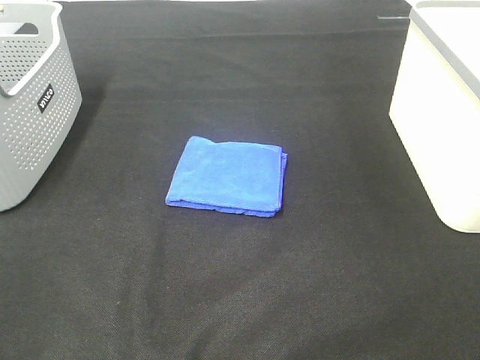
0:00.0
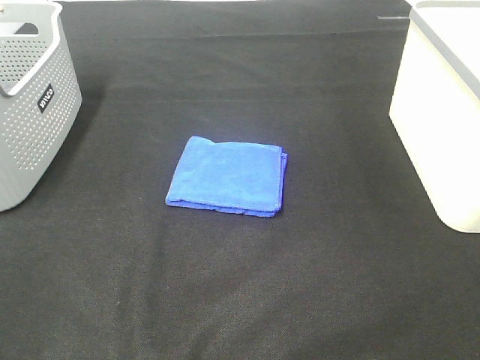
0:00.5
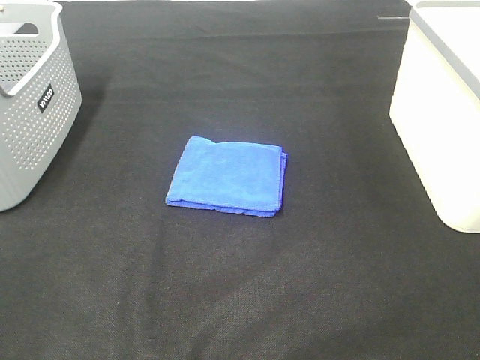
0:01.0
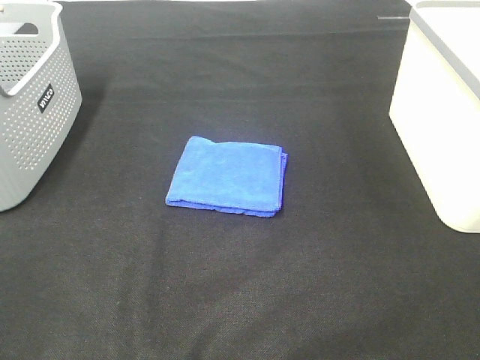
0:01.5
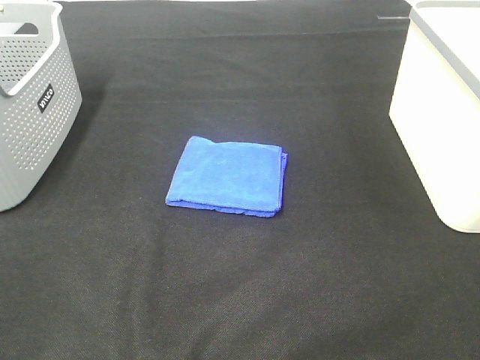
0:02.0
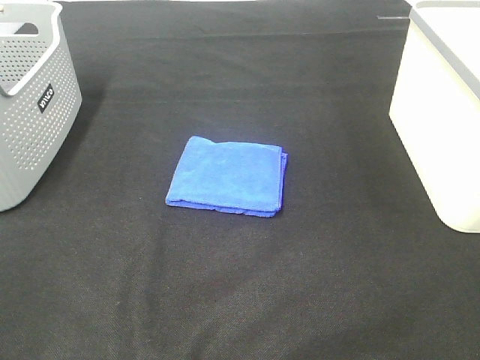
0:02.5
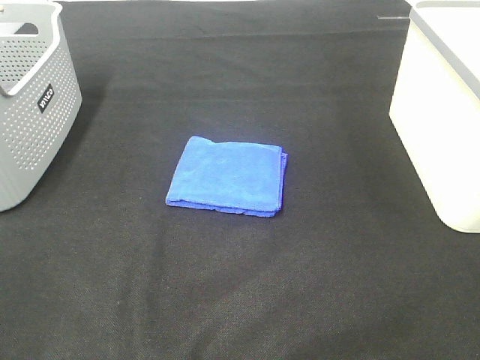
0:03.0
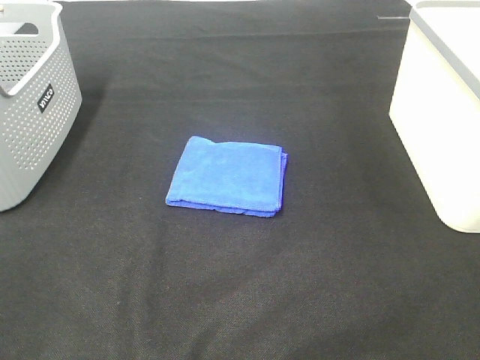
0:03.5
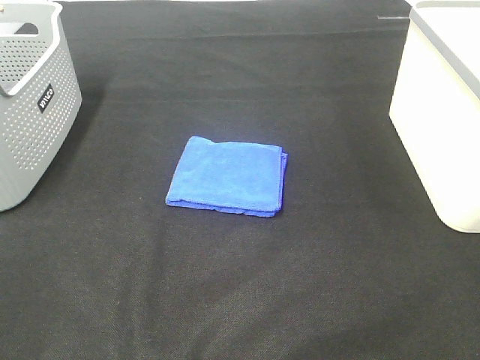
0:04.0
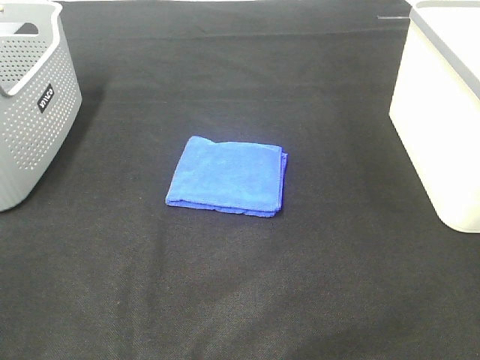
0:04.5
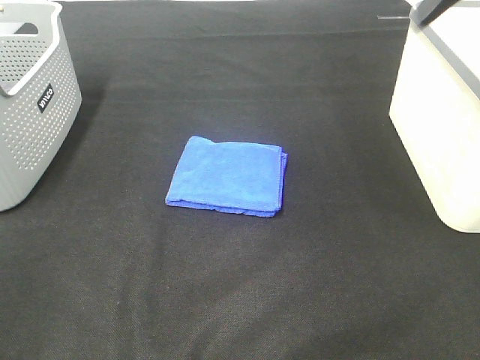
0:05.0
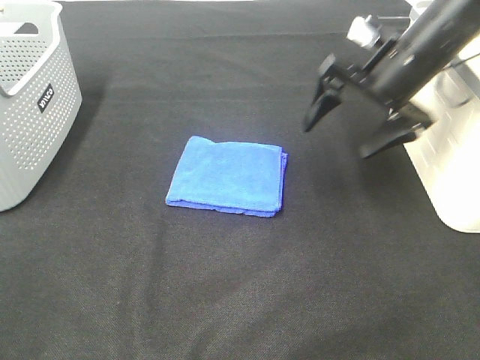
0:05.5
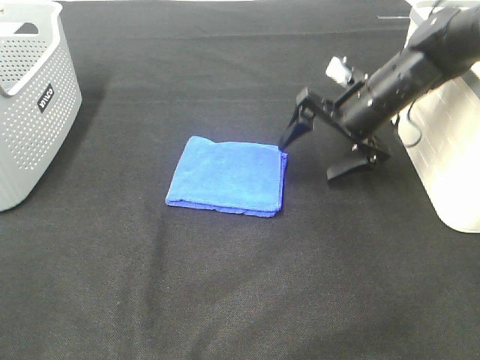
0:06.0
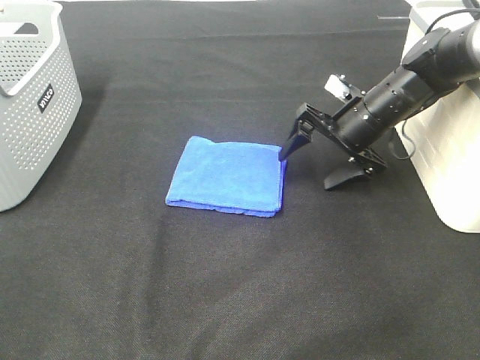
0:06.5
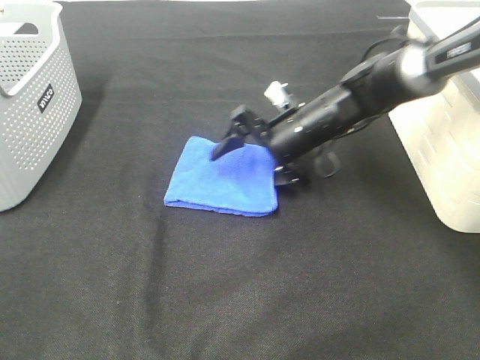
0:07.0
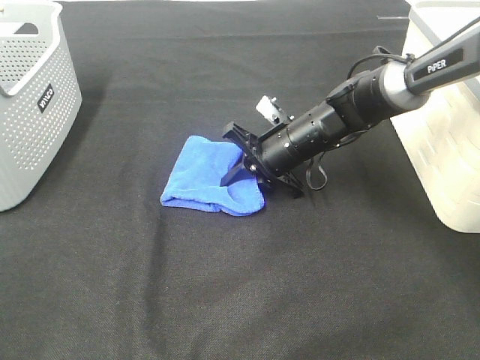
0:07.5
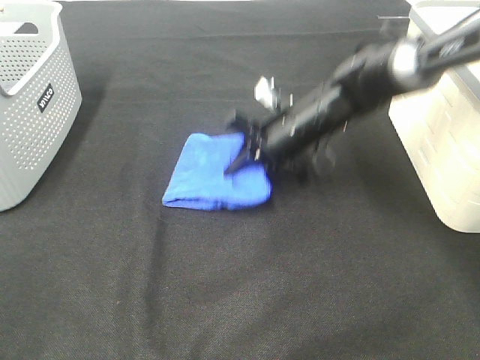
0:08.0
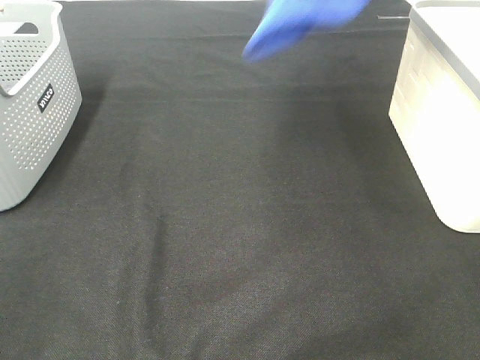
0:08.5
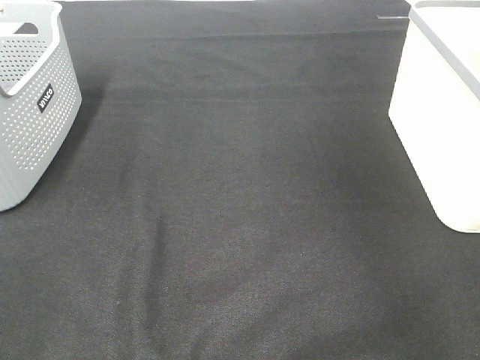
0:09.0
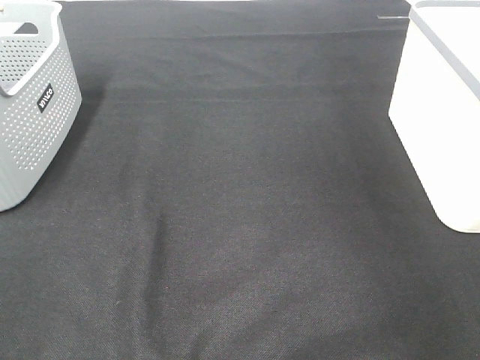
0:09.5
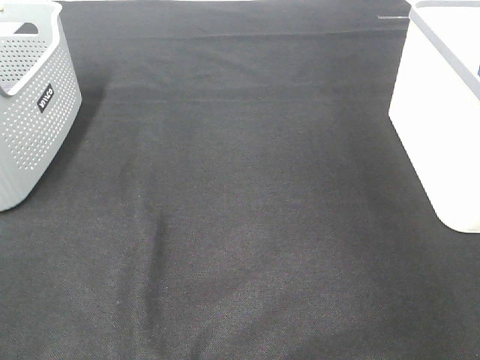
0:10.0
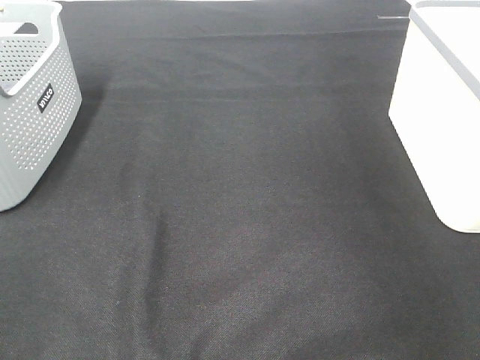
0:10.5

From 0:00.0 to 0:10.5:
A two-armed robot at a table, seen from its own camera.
Step, from 0:00.0 to 0:07.5: Right hand: grab the folded blue towel.
From 0:00.0 to 0:02.0: Both grippers stay put.
From 0:04.0 to 0:06.5: The right gripper travels forward and downward by approximately 40 cm.
From 0:06.5 to 0:08.5: The right gripper heads upward, covering some 25 cm, and closes its fingers.
From 0:08.5 to 0:10.5: The right gripper is displaced to the right by roughly 20 cm, and opens its fingers.

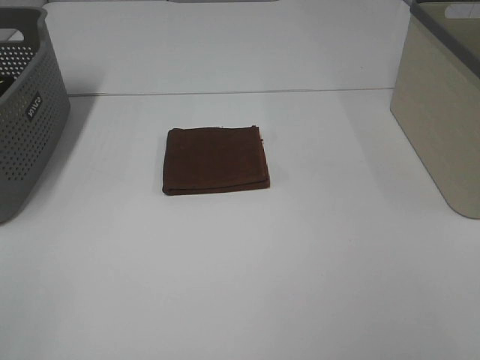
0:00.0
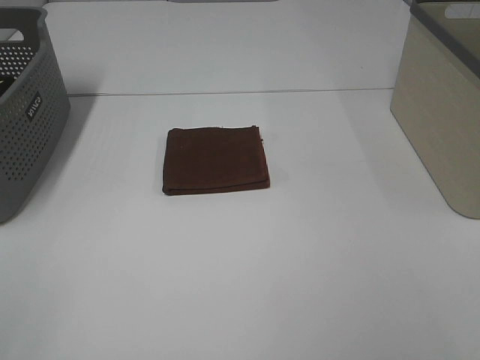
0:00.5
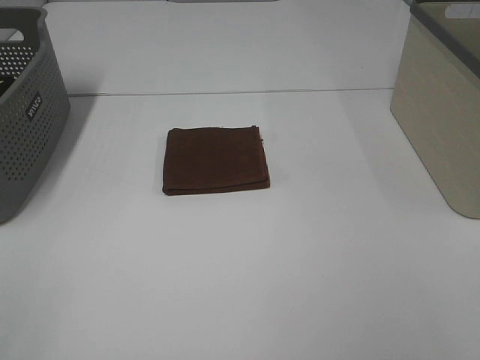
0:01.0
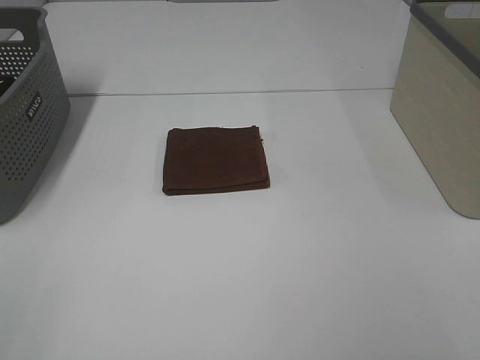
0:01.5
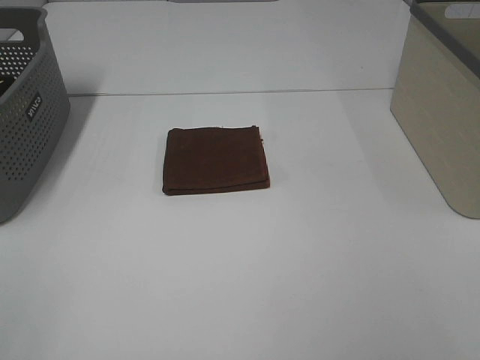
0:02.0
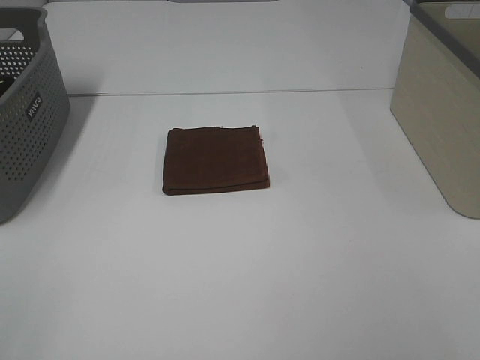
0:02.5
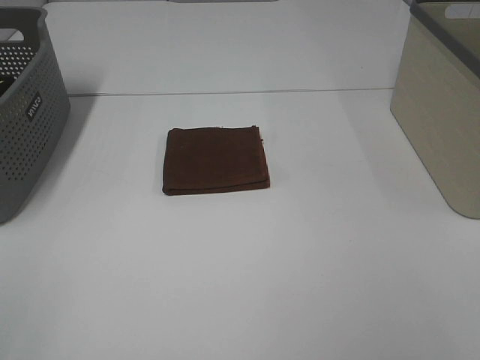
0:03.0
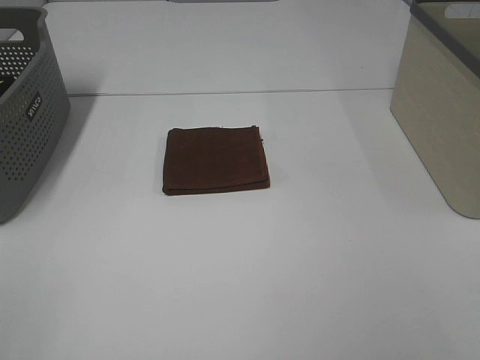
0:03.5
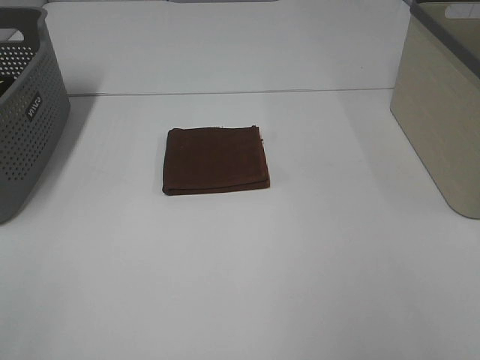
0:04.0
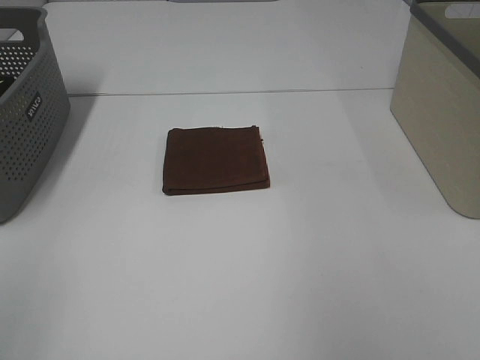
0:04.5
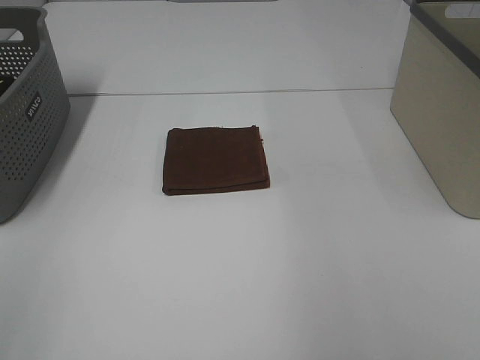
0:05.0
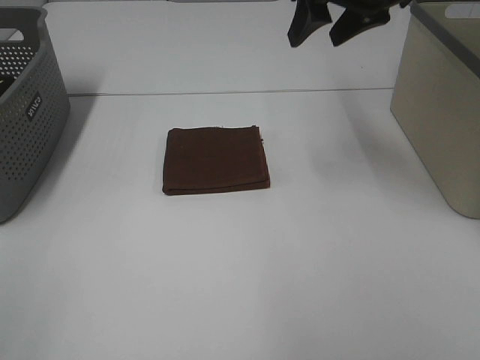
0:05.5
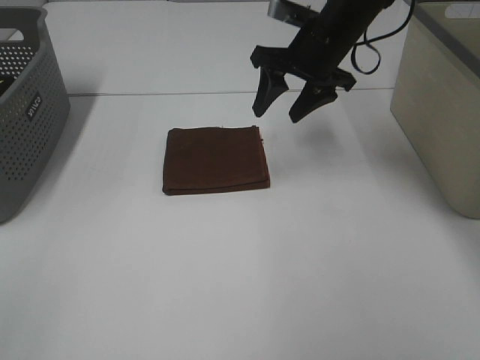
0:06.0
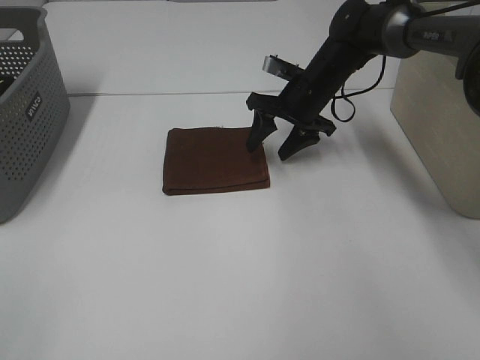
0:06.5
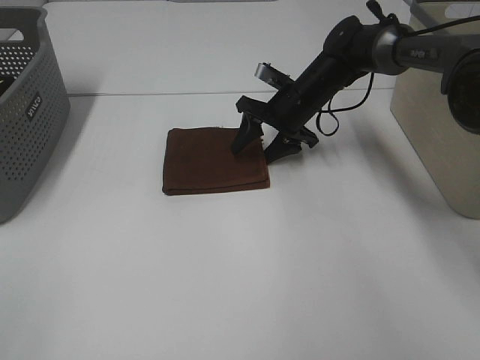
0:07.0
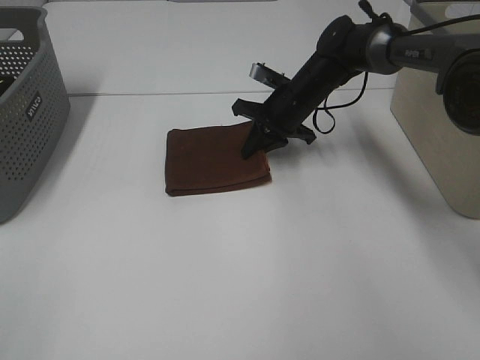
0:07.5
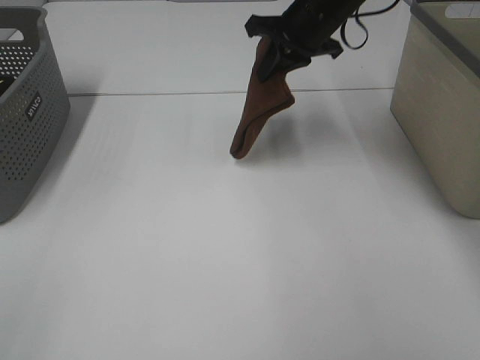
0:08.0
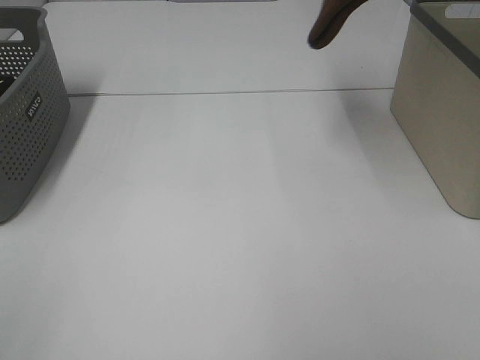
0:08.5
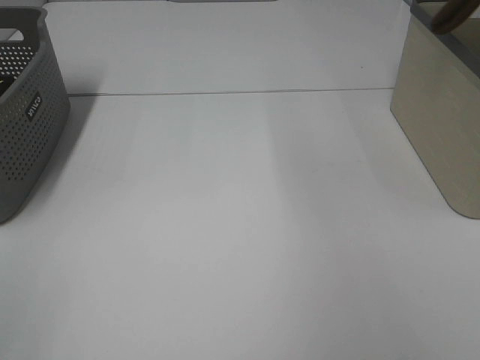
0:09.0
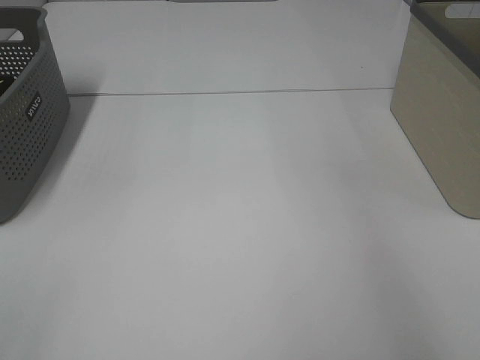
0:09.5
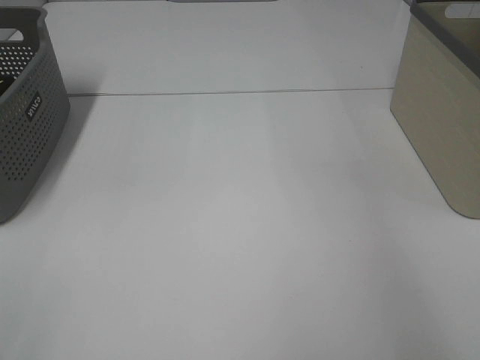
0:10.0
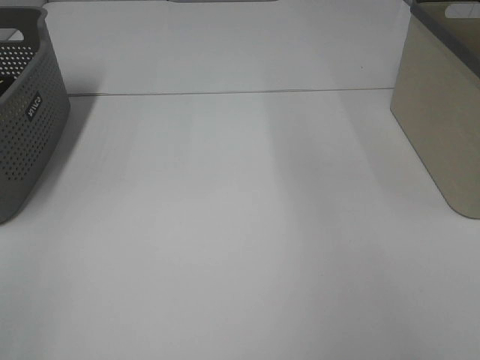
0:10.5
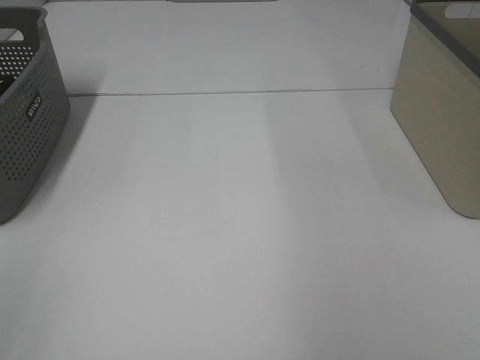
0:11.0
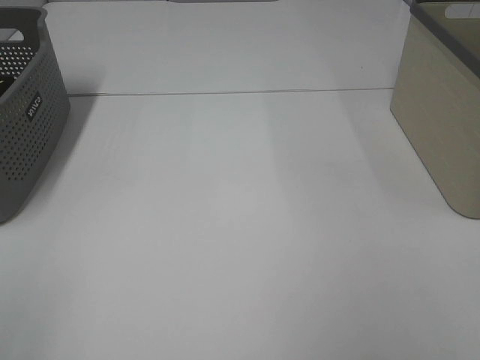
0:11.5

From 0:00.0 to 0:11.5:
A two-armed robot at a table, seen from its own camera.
Step, from 0:00.0 to 0:07.0: Right hand: grab the folded brown towel.
Step, from 0:07.5 to 0:10.0: Right hand: place the brown towel in right basket.
From 0:00.0 to 0:02.0: Neither gripper changes place.
From 0:04.0 to 0:06.0: The right gripper travels forward and to the left by roughly 40 cm.
From 0:06.0 to 0:07.5: The right gripper moves downward, roughly 10 cm, and closes up.
From 0:07.5 to 0:09.5: The right gripper is displaced to the right and upward by roughly 40 cm.

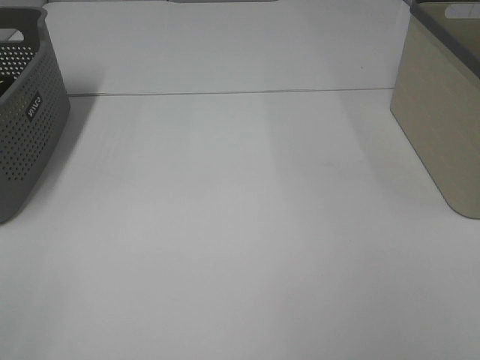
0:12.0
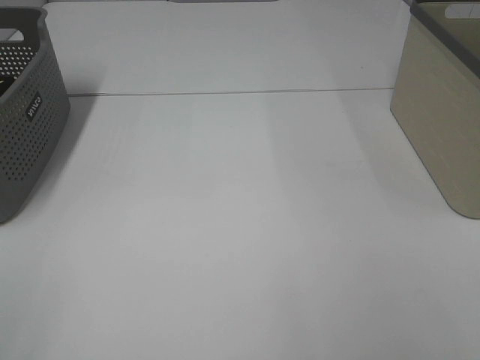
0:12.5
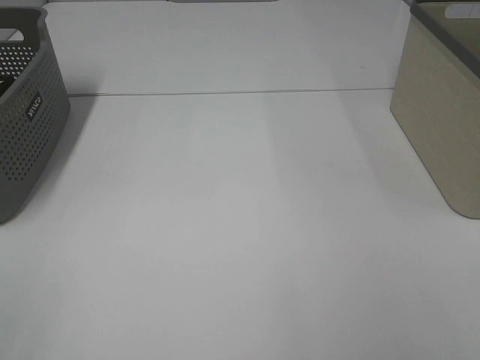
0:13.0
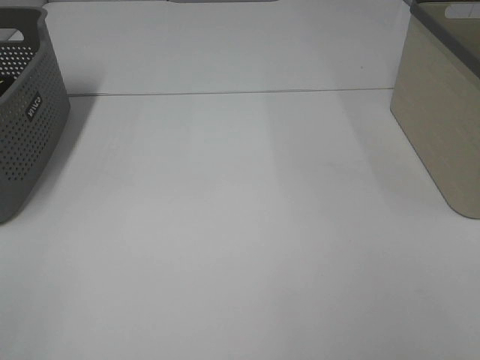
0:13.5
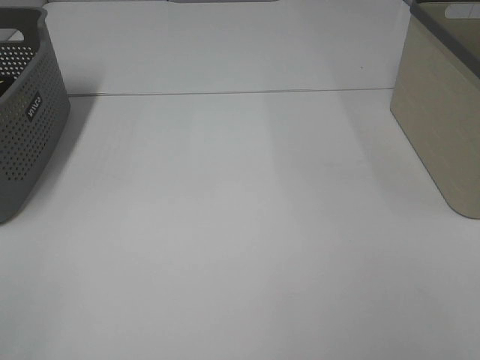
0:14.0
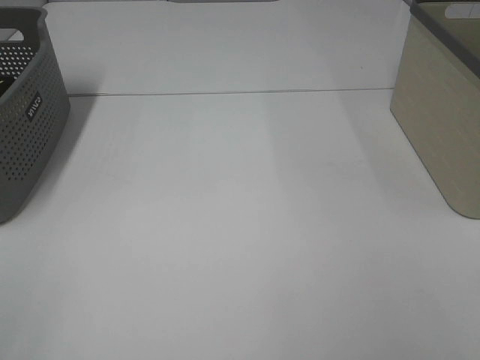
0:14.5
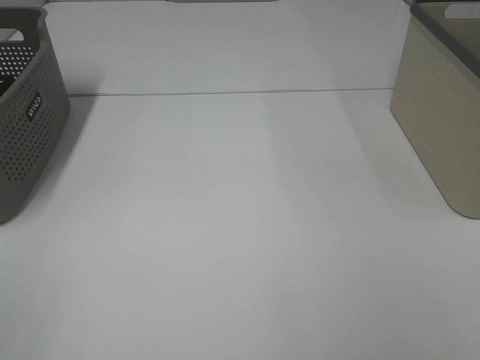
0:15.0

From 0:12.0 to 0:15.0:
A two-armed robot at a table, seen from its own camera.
From 0:13.5 to 0:15.0: The two grippers keep their place.

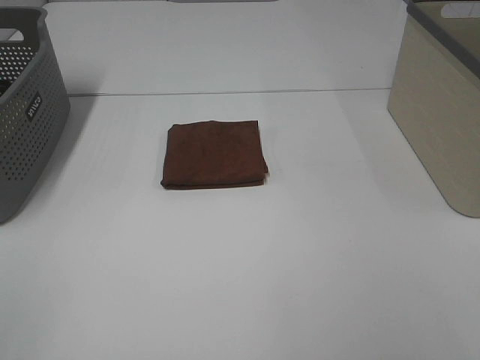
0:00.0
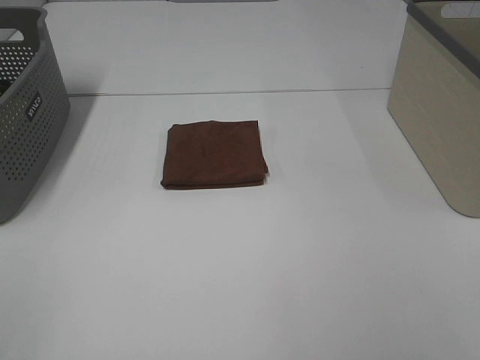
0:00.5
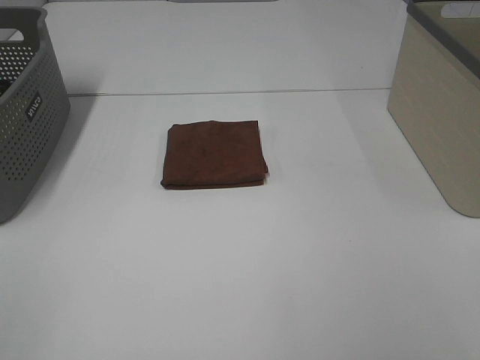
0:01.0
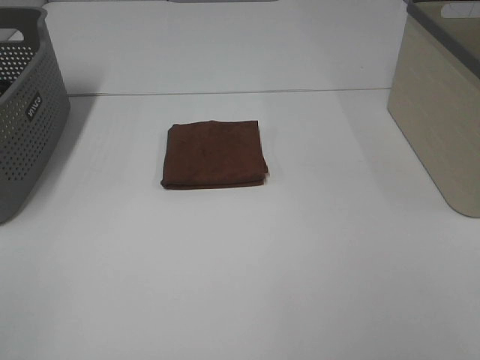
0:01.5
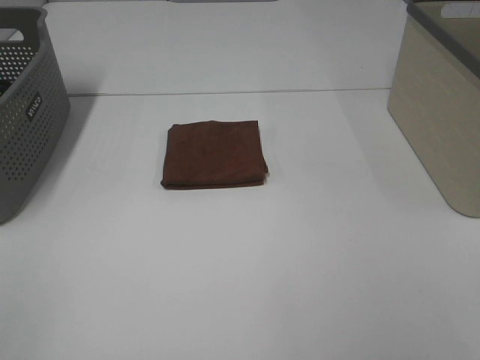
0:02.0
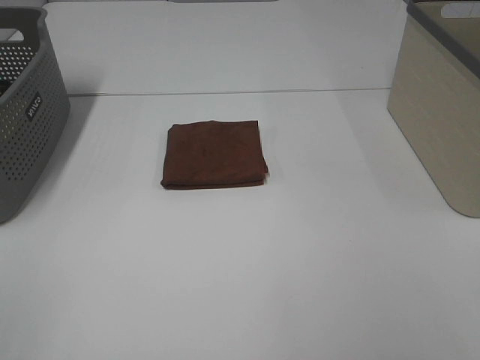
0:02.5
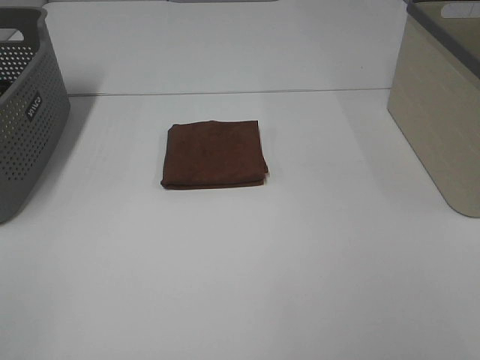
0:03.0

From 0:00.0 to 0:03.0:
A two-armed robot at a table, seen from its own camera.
From 0:00.0 to 0:03.0: Both grippers stay about where they are.
